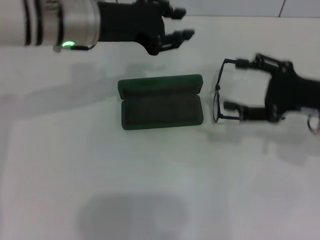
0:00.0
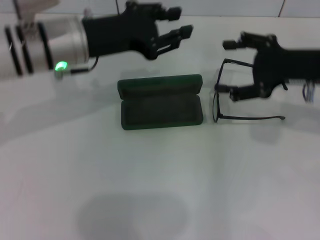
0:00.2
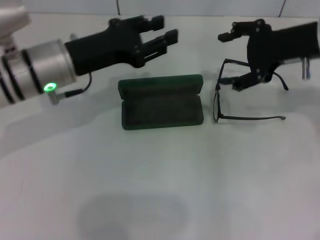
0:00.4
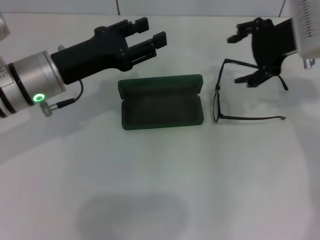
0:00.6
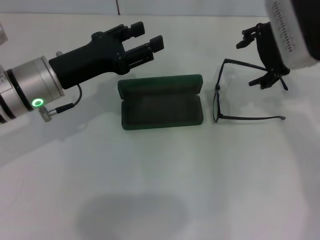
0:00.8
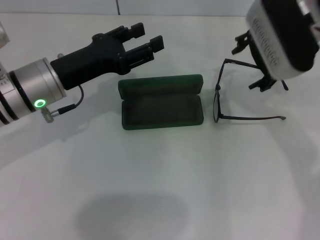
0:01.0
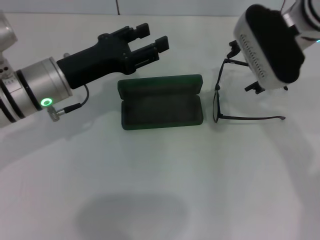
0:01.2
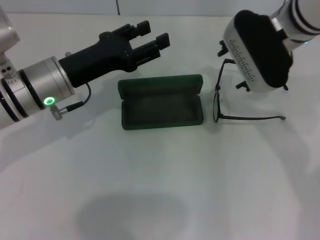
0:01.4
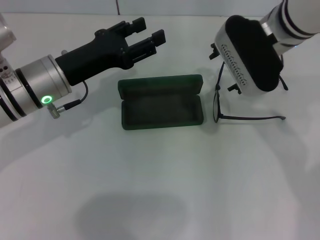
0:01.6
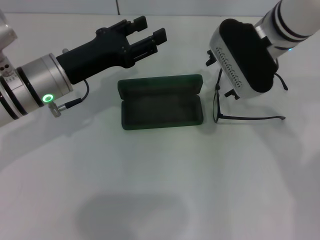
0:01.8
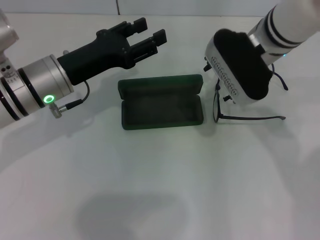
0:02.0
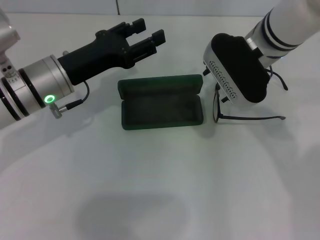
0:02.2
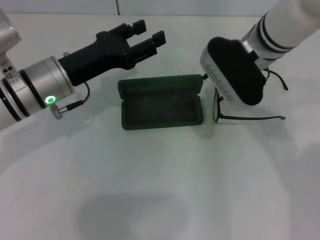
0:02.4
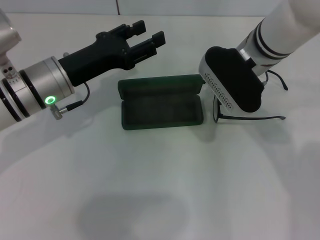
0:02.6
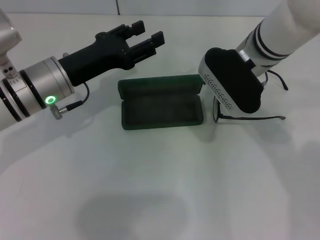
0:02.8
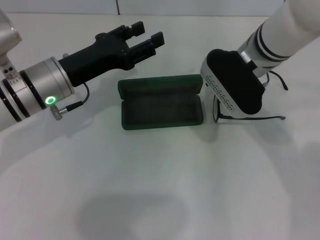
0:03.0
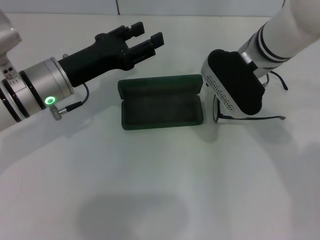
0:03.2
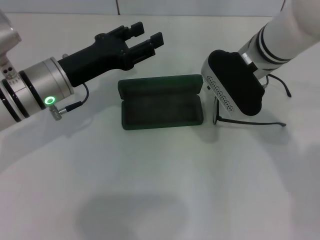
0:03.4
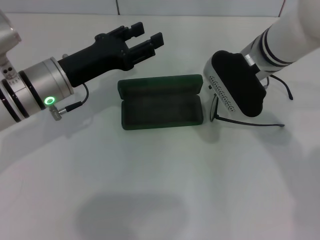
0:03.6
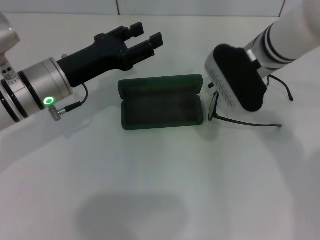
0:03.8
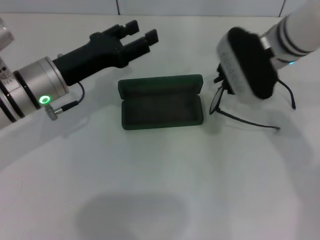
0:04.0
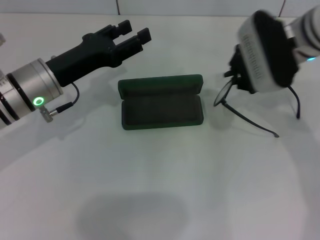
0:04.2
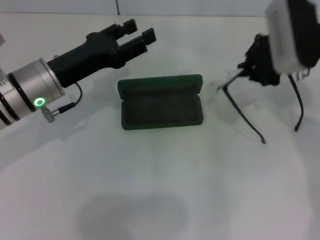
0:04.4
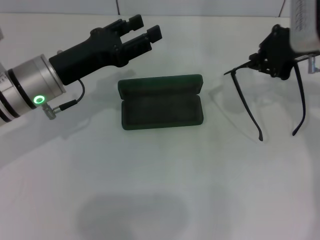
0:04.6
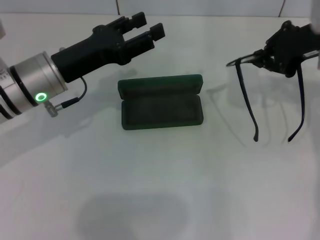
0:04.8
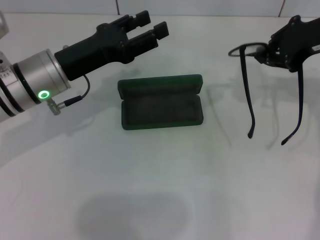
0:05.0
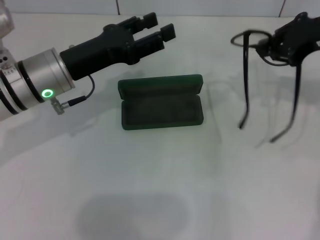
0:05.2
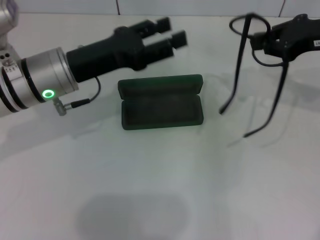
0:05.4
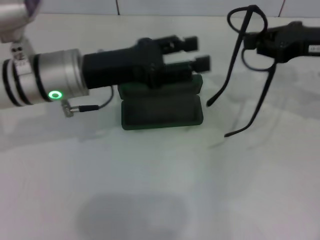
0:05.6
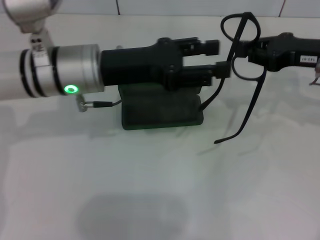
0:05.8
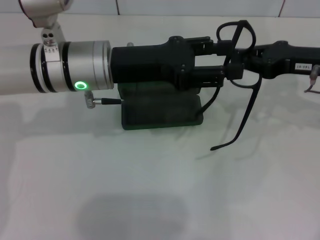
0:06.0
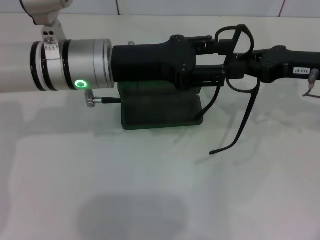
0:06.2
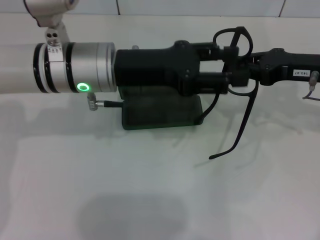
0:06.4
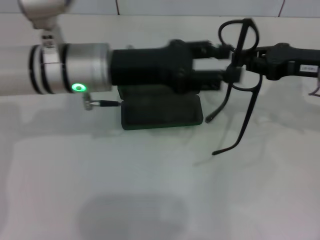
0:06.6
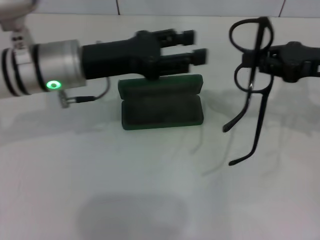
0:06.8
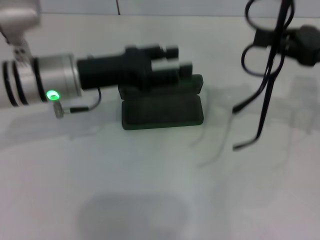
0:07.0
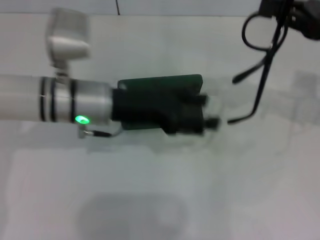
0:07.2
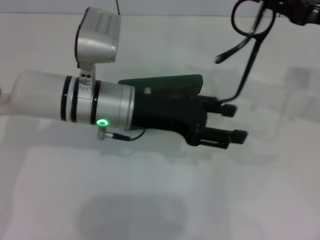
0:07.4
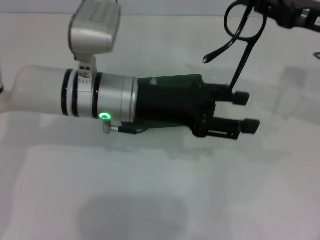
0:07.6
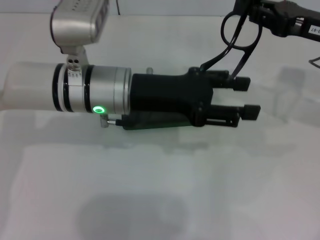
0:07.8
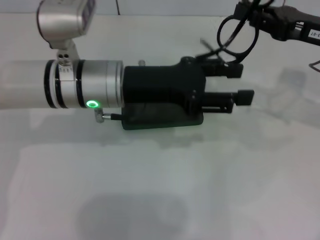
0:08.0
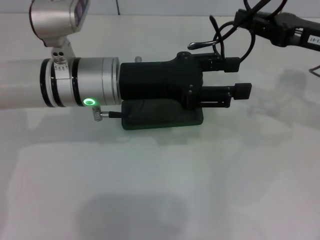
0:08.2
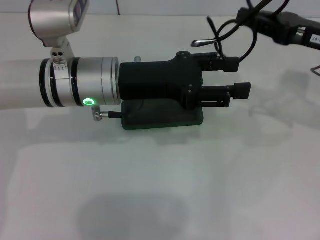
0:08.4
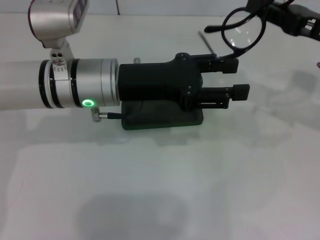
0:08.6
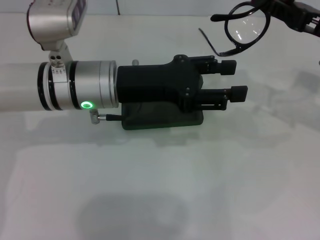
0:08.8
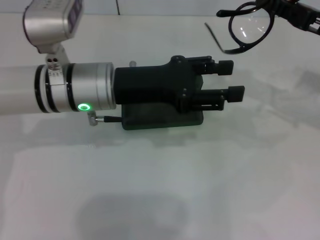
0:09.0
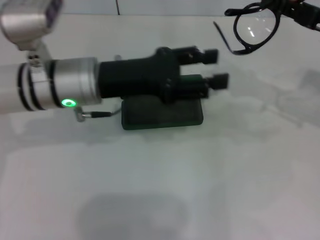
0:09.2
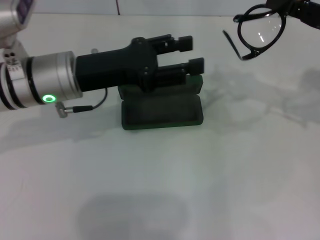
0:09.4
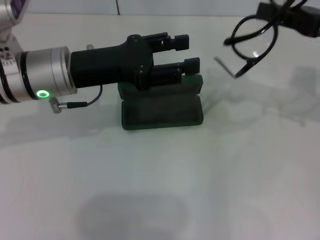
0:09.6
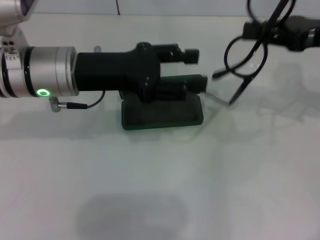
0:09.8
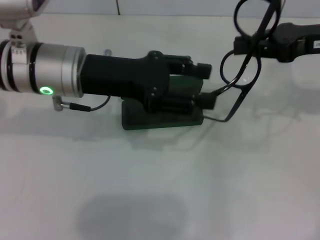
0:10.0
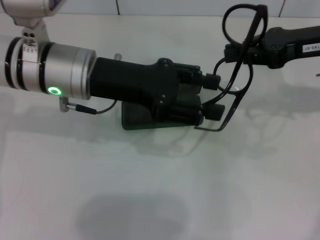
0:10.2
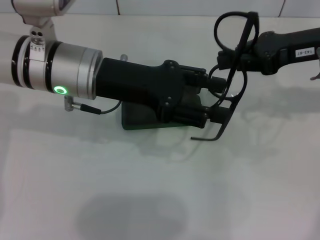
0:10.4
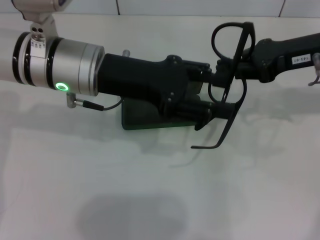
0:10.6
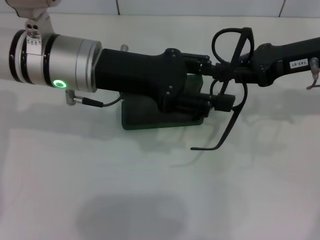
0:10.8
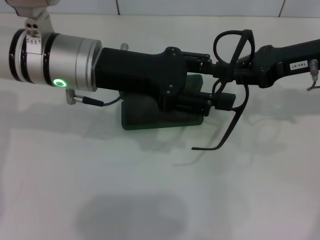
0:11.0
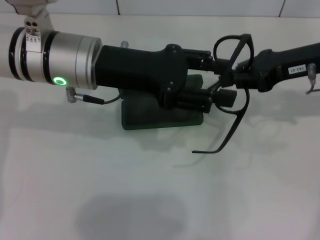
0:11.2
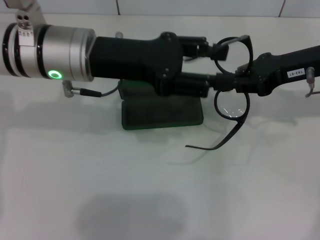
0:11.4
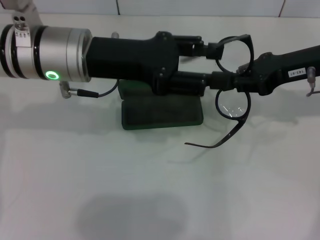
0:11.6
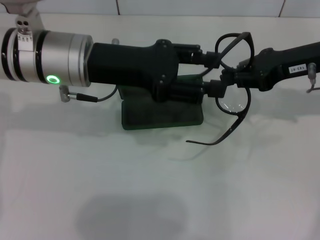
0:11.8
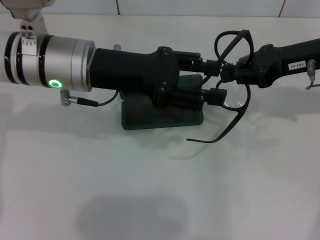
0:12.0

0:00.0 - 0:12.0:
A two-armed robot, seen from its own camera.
Step, 0:00.0 - 0:03.6: Grab the eyeglass frame with your right hand.
0:00.0 - 0:01.6: The right gripper moves to the left, forward and upward, some 20 cm. Meanwhile the left gripper is displaced downward by some 10 cm, and opens up.
0:01.6 - 0:03.0: The right gripper closes its fingers.
0:03.0 - 0:04.4: The right gripper travels to the right by some 10 cm, and closes.
0:04.4 - 0:06.0: The left gripper is displaced to the right and upward by approximately 10 cm, while the right gripper travels to the right by roughly 5 cm.
0:07.6 - 0:09.0: The grippers move only a little.
0:09.0 - 0:10.4: The right gripper changes place by approximately 5 cm.
0:10.4 - 0:12.0: The grippers move only a little.

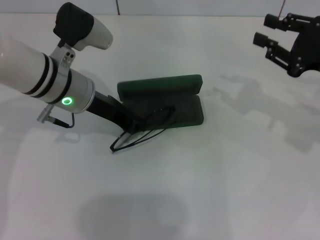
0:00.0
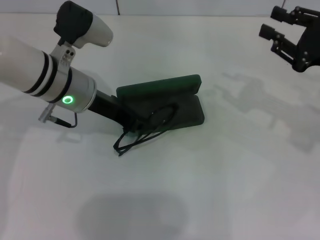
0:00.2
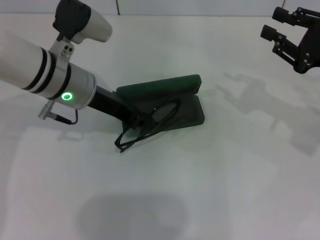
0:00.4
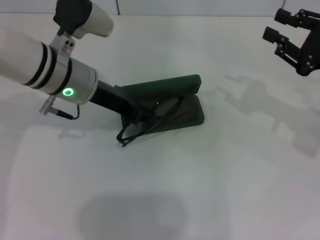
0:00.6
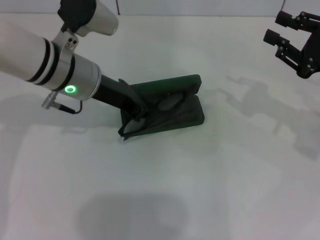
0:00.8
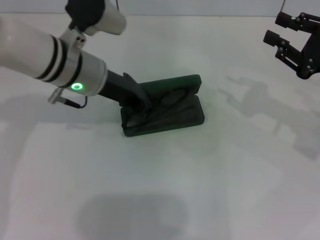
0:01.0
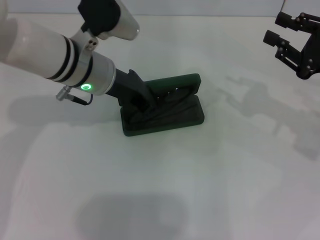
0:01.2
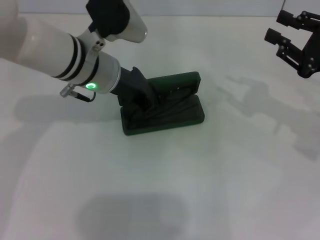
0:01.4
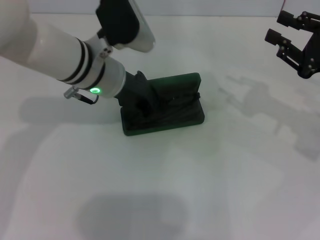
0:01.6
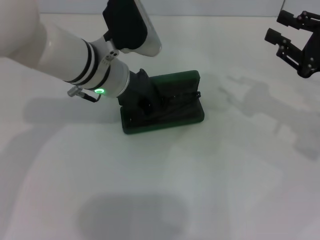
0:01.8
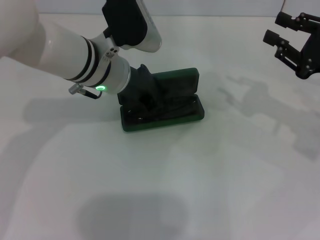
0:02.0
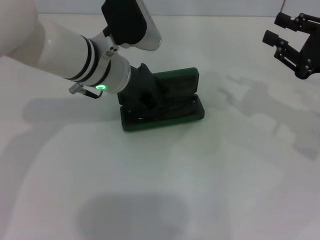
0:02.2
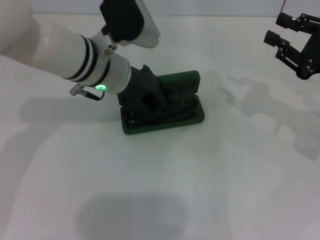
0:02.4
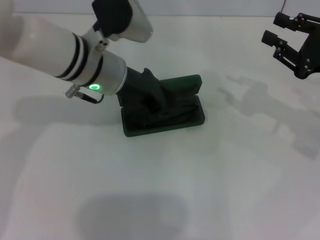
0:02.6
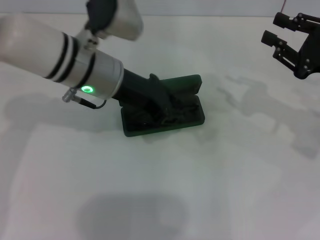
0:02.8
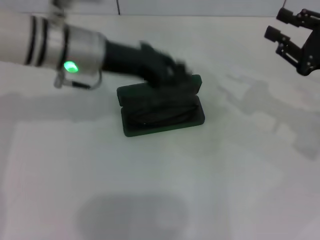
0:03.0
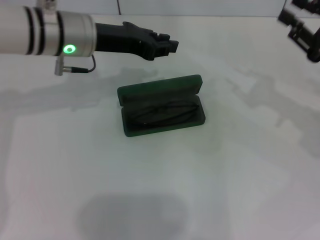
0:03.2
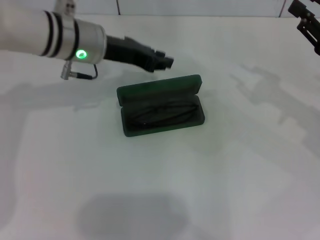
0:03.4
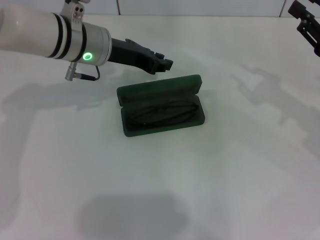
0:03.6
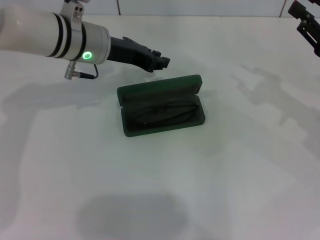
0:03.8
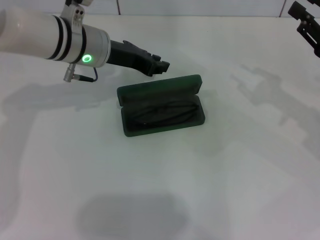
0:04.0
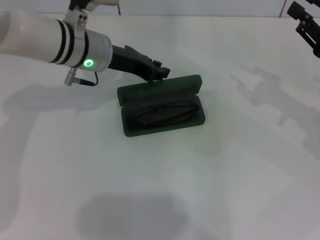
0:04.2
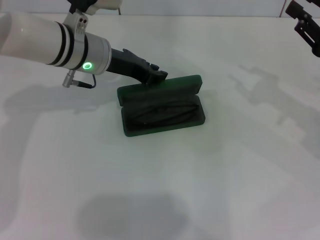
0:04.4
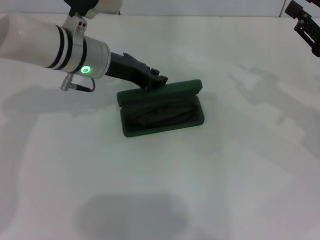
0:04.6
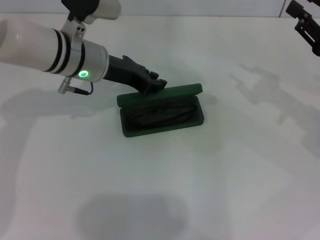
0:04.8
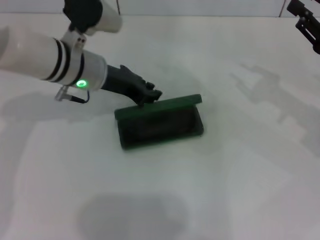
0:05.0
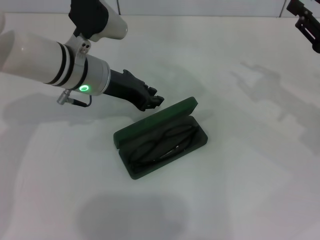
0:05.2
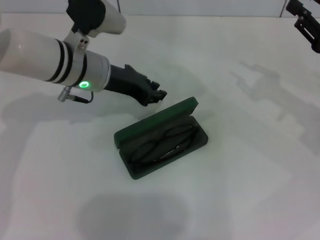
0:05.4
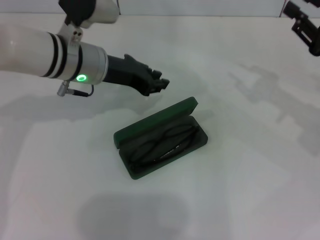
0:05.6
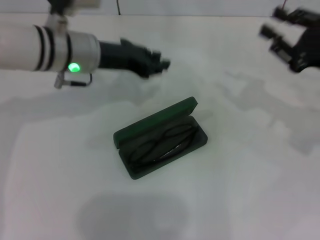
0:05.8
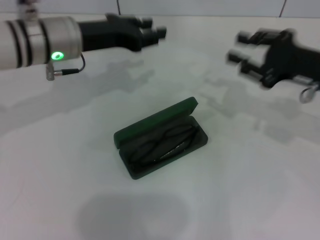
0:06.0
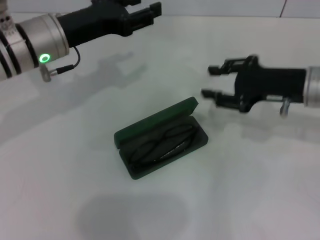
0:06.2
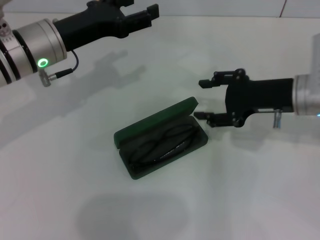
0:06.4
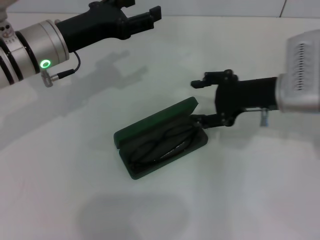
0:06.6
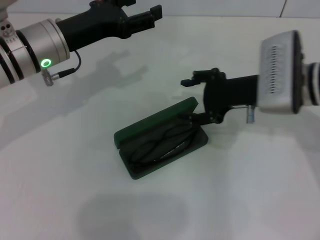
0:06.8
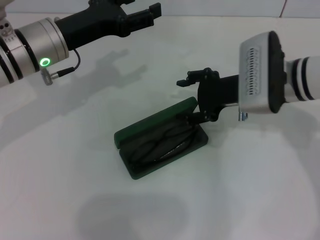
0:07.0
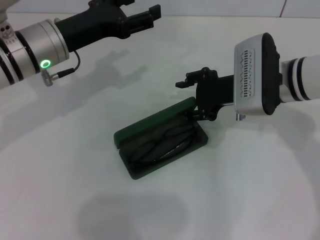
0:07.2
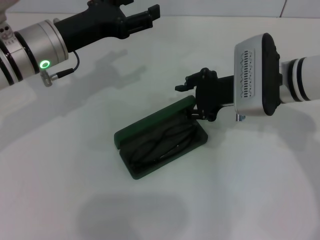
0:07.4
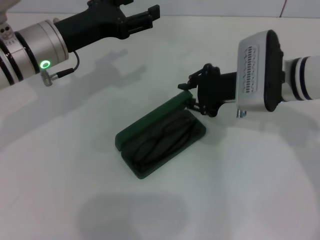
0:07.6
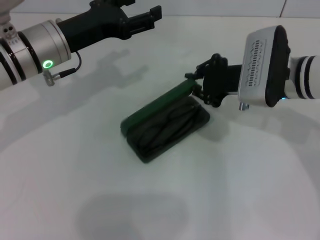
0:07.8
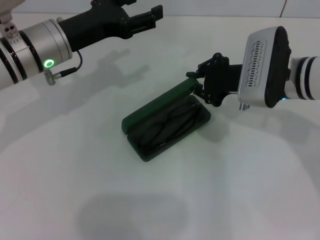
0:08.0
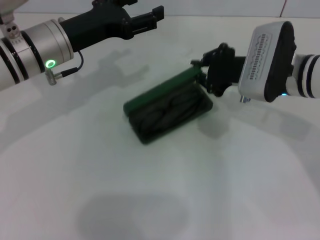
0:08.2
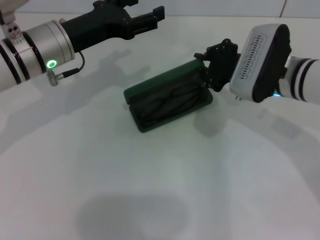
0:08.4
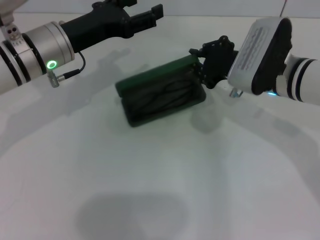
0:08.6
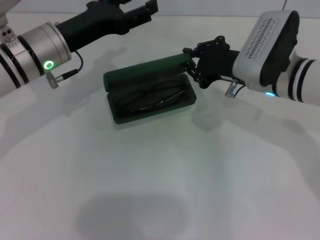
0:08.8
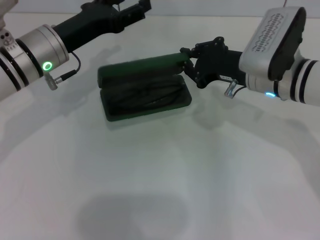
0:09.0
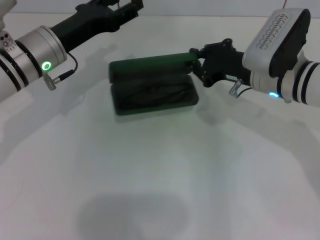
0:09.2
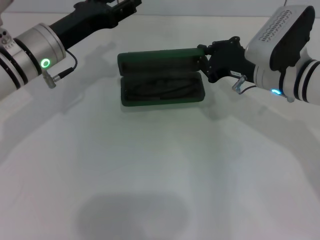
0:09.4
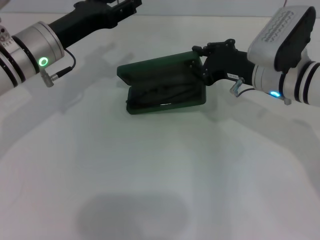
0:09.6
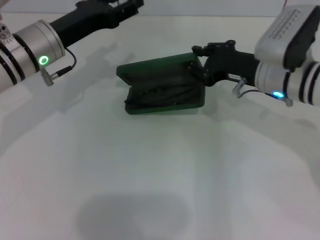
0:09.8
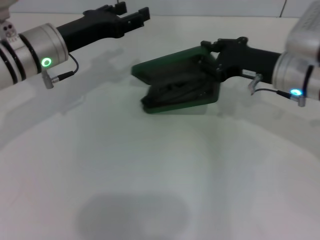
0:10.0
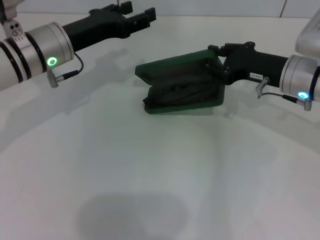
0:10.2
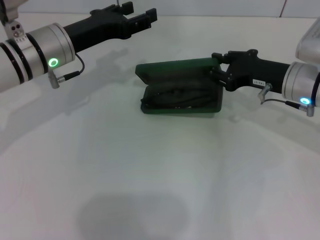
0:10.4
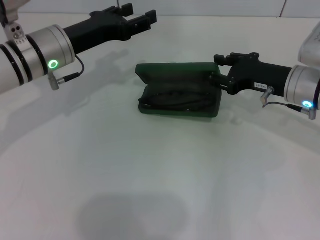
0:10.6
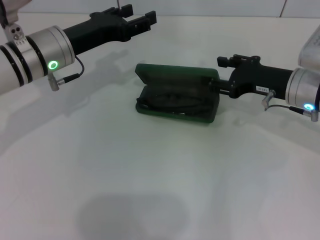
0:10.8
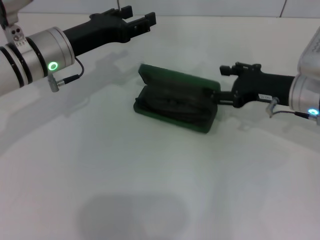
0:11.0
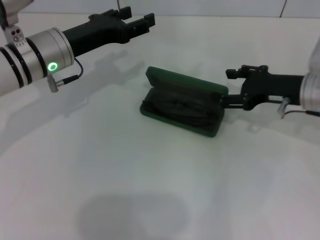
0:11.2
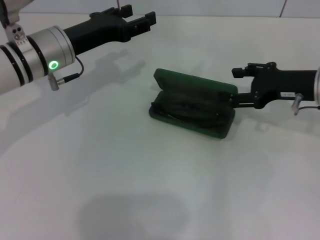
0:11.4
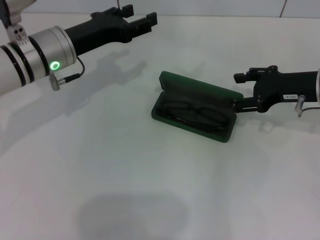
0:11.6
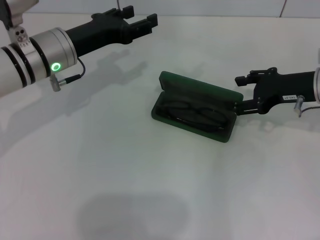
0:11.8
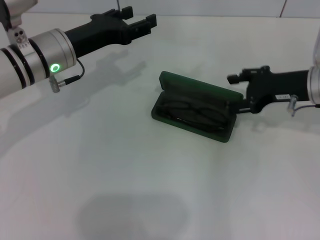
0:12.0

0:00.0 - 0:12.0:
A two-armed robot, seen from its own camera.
Step, 0:00.4 - 0:02.4: Put the glasses into the case with your left hand.
0:03.0 - 0:04.4: The left gripper moves approximately 5 cm.
0:04.4 - 0:06.0: The left gripper changes place by roughly 5 cm. The right gripper ends up about 5 cm from where it was.
0:06.0 - 0:07.6: The right gripper heads to the left, covering approximately 10 cm, and opens, then closes again. The left gripper opens.
0:09.0 - 0:10.4: The right gripper moves to the right, about 5 cm.
0:10.4 - 0:12.0: The right gripper opens its fingers.
